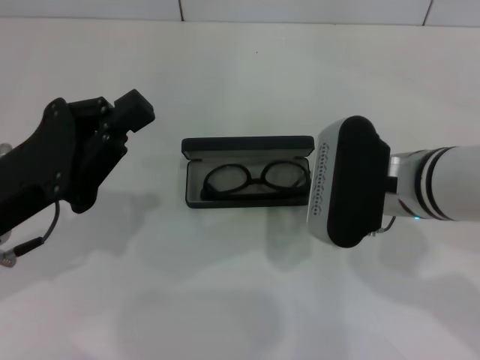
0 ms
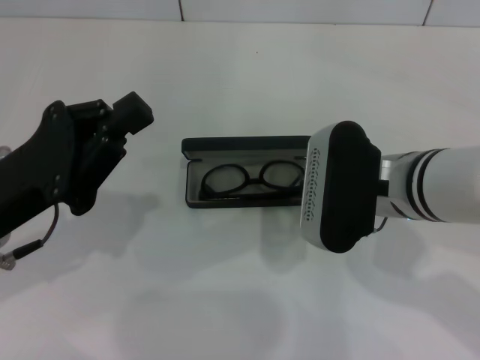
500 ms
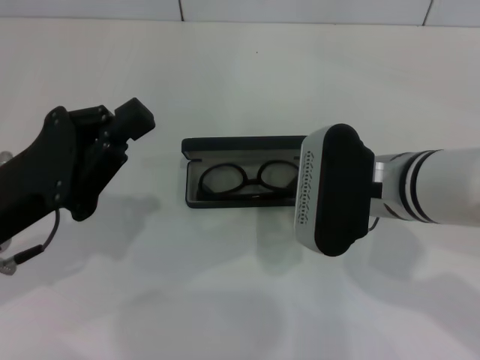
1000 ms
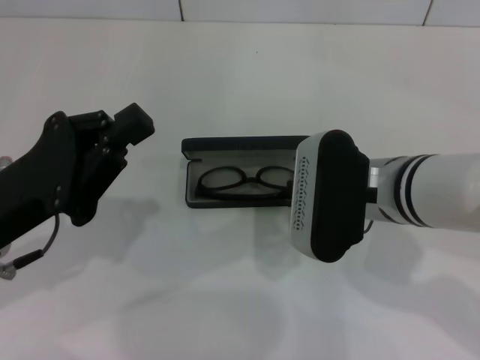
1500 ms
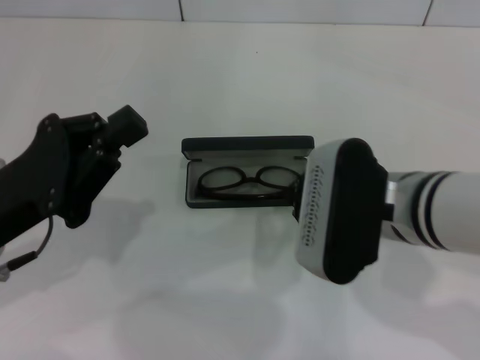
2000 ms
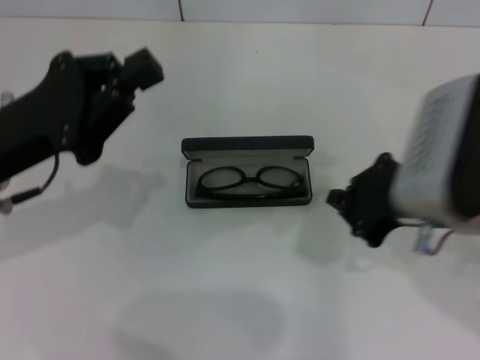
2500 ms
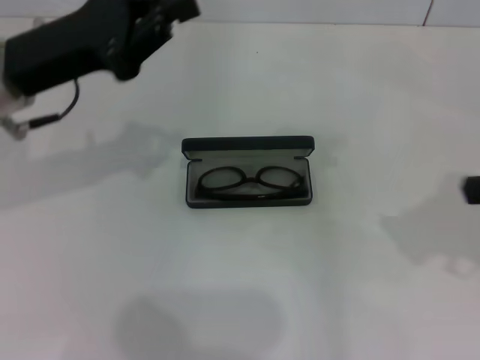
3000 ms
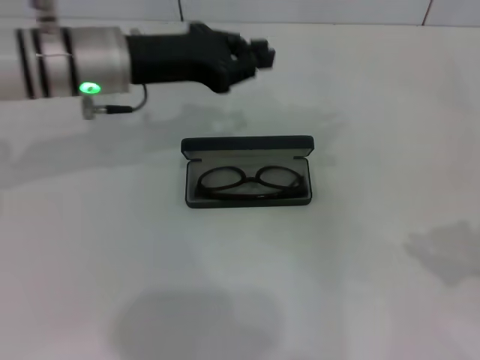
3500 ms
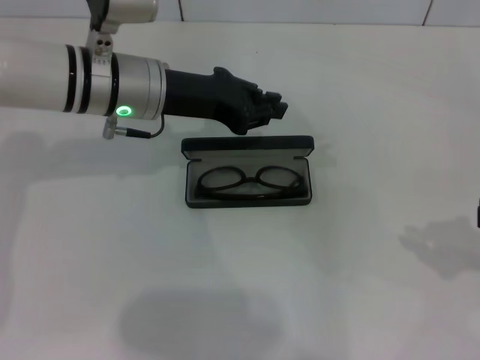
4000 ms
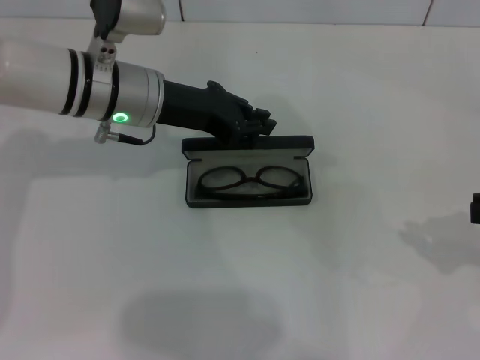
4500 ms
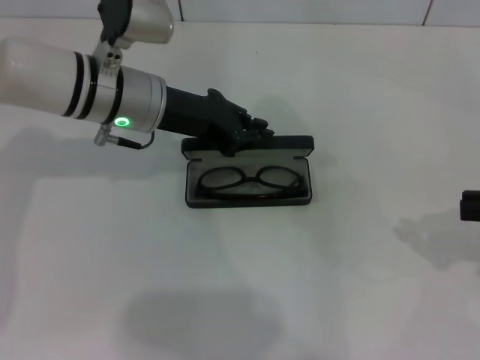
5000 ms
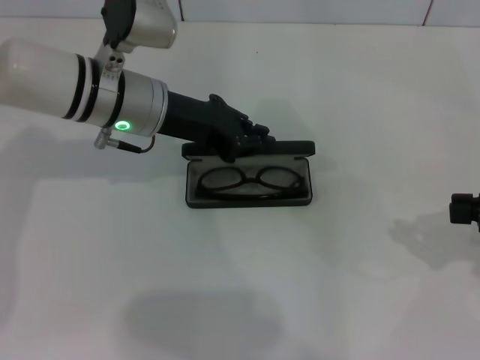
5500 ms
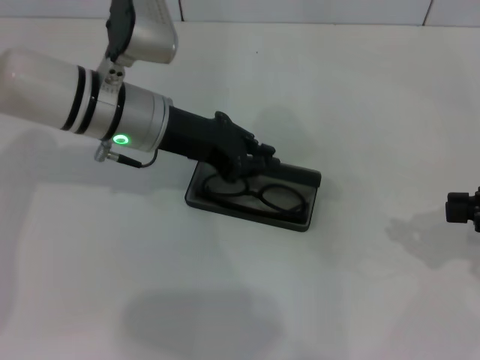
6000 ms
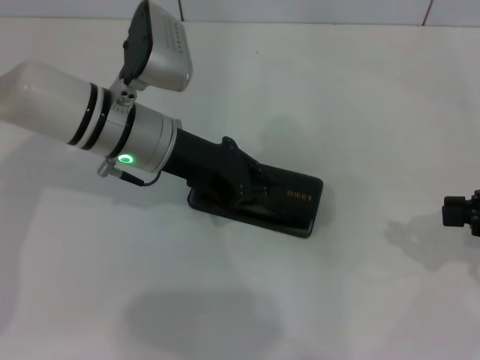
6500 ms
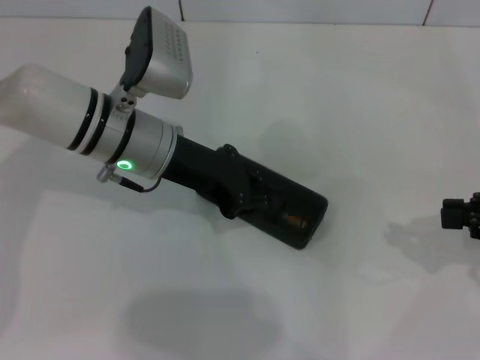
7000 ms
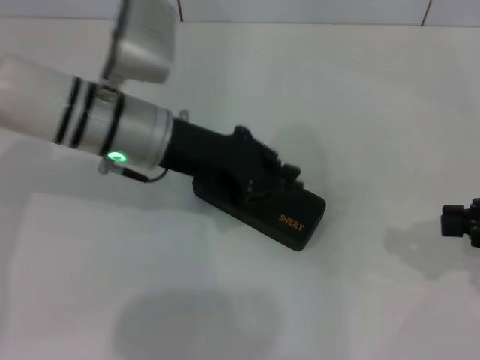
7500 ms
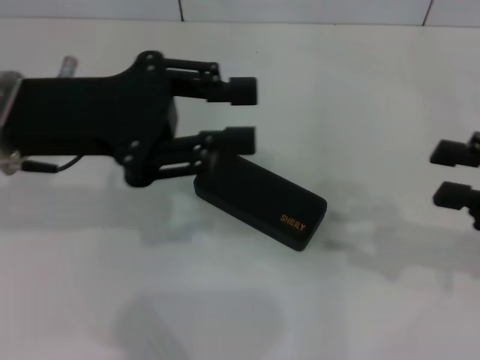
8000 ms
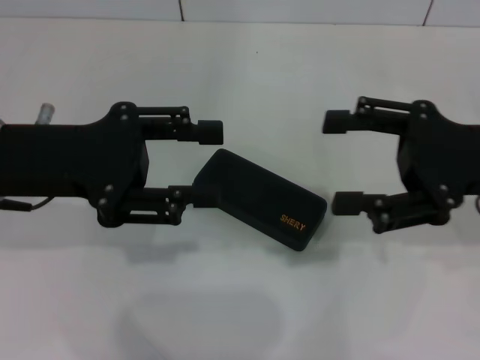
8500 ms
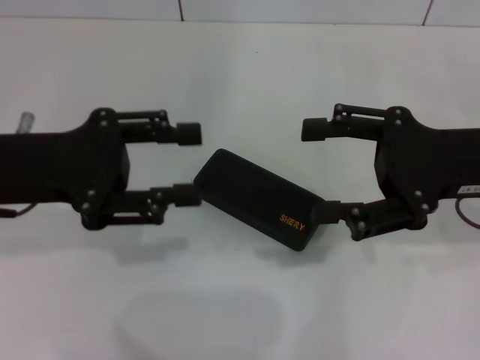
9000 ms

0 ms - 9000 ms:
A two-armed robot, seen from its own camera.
Step, 2000 ms - 6500 ms: Close the glasses case with your left hand.
0 ms - 2000 ms: The grippers make only small movements.
2000 ms - 4500 ms: The right gripper is displaced to the right by some 25 cm. The left gripper travels forward and to the right by some 20 cm.
4500 ms - 7000 ms: The grippers make only small movements.
7000 ms - 9000 ms: The left gripper heads to the left, backward and upward, covering some 15 cm, and opens. Meanwhile the right gripper moves to the left, approximately 10 cm, and opens up.

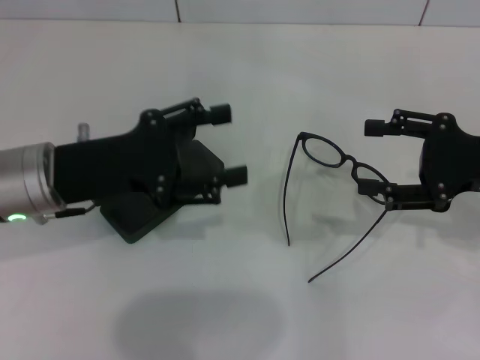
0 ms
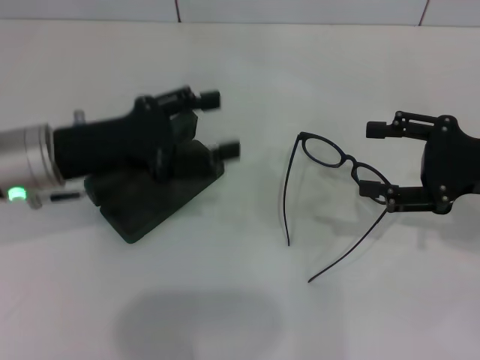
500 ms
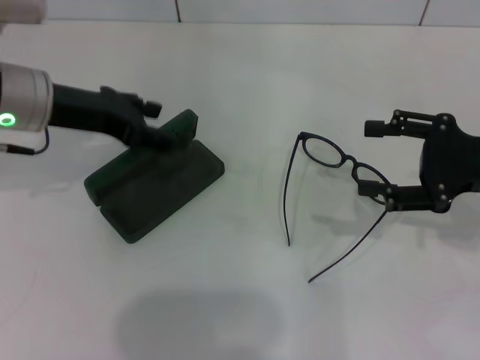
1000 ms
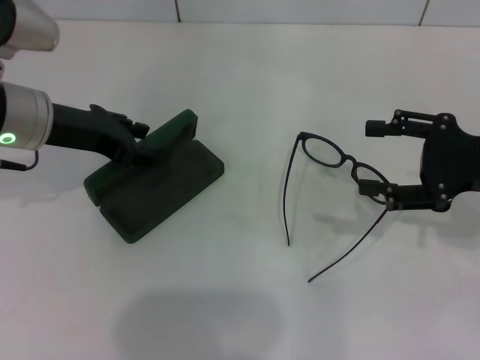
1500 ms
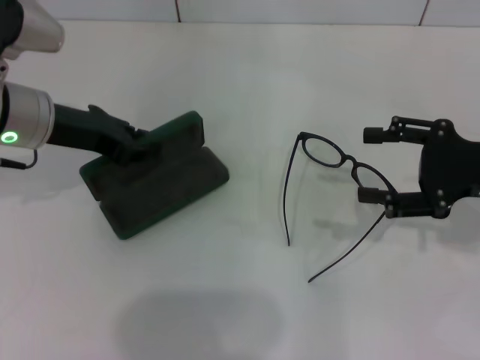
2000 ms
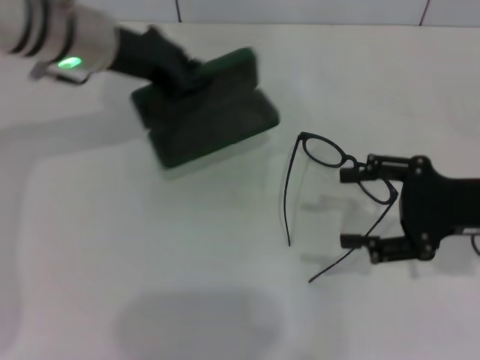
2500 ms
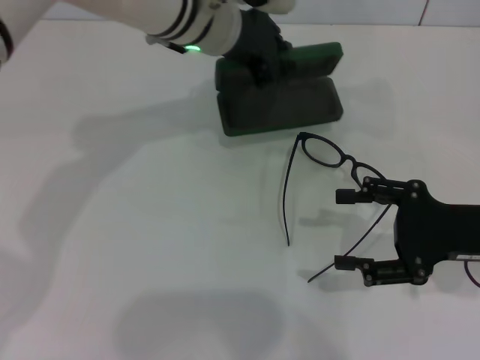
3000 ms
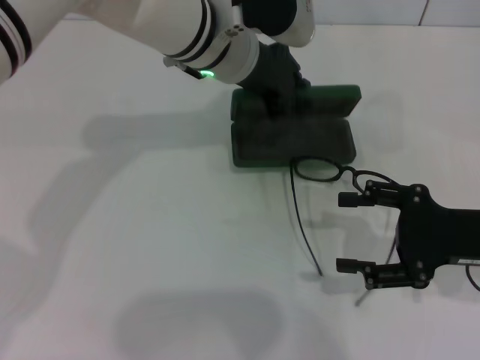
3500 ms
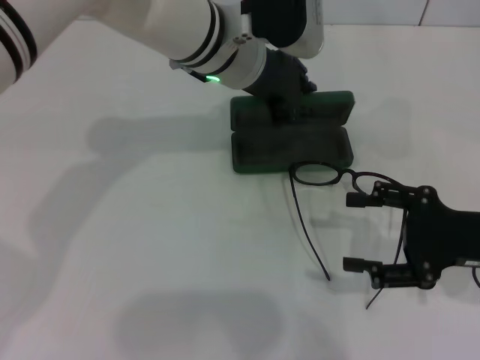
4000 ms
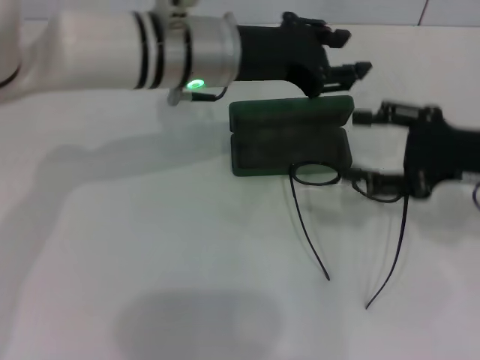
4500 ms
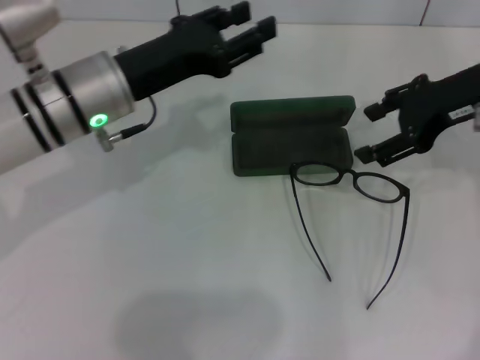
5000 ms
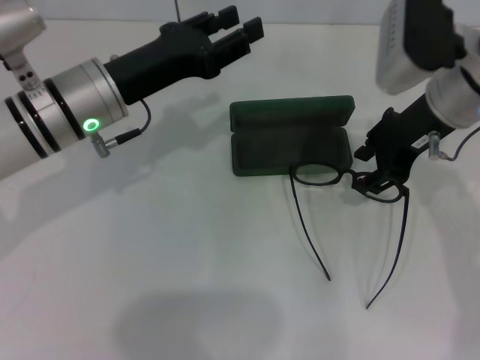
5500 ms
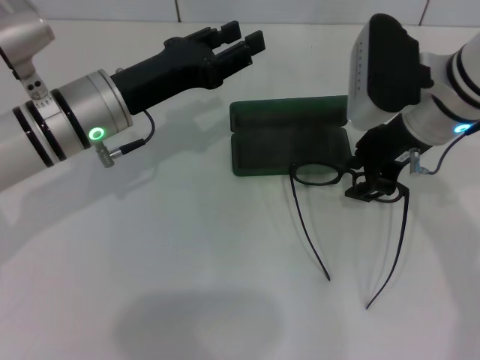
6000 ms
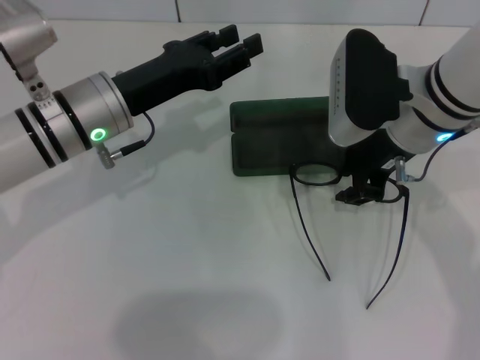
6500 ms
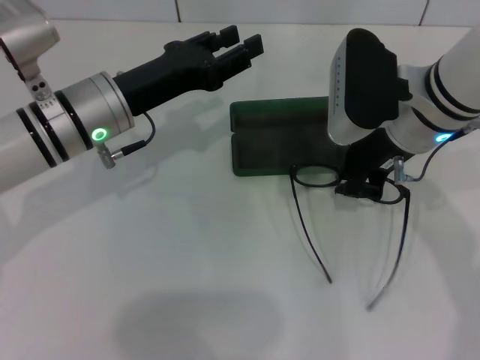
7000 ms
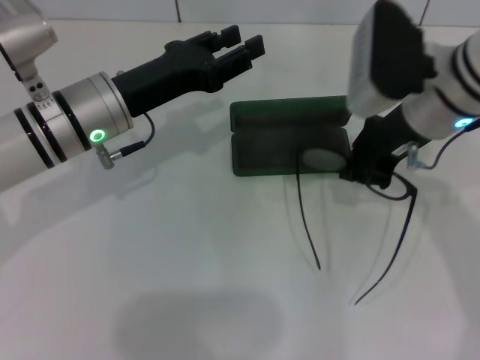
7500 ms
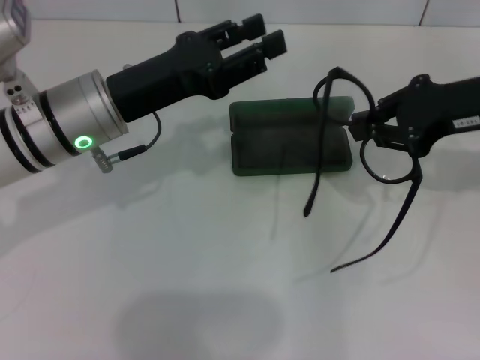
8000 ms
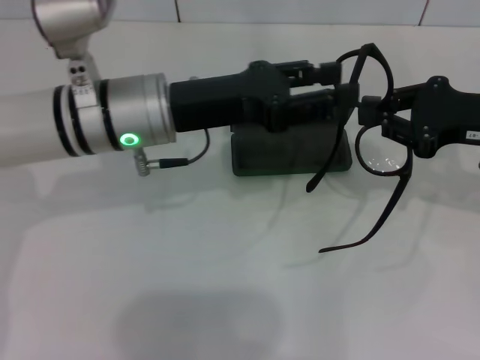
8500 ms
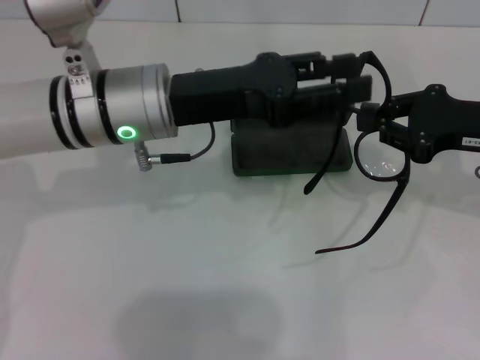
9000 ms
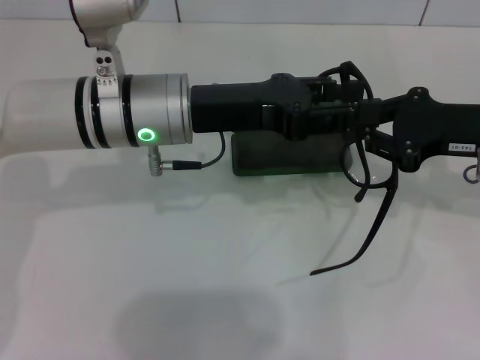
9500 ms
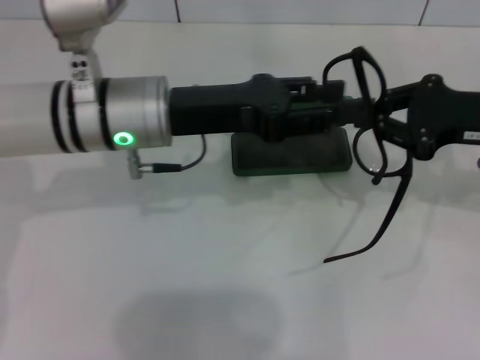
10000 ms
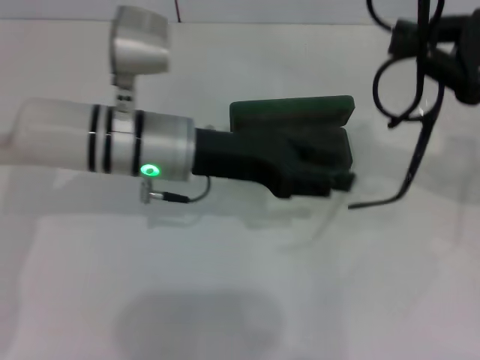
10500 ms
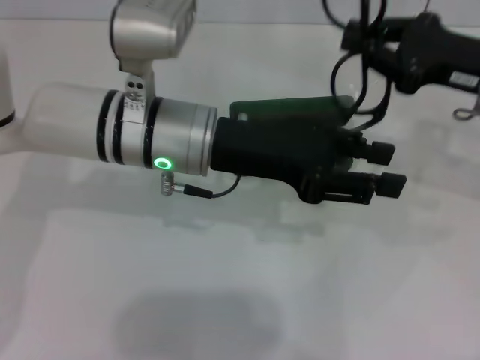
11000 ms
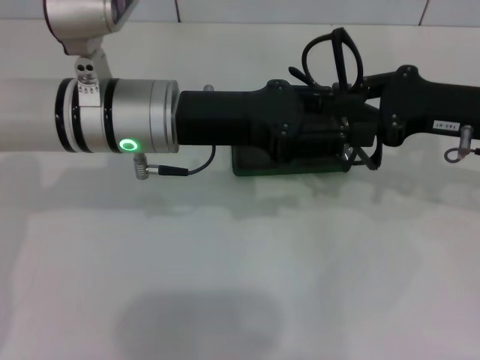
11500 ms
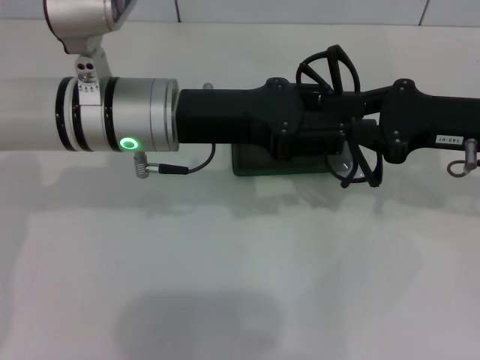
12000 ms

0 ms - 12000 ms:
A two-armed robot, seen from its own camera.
Step, 0 ms - 1500 ms: Grab the glasses case with your left hand.
Step, 2000 ms - 4000 ms: Place the glasses case in the center of the table with your left hand.
Step, 4500 ms - 7000 ms: Grab the eyeglass frame with your right hand.
0 ms - 2000 ms: The left gripper travels forward by about 5 cm, and closes up.
2000 ms - 4000 ms: The left gripper shifts about 20 cm to the right. Meanwhile the right gripper shifts by approximately 5 cm.
4000 ms - 6000 ms: The right gripper is displaced to the left, forward and upward by some 20 cm. The left gripper goes approximately 15 cm to the left, backward and downward, and opens.
6000 ms - 8000 ms: The right gripper moves to the right, about 10 cm, and closes.
10000 ms - 12000 ms: There are only small adjustments of the grippers.

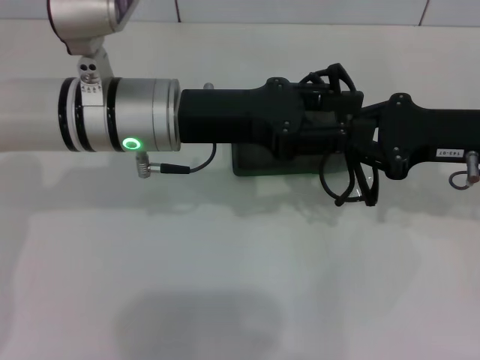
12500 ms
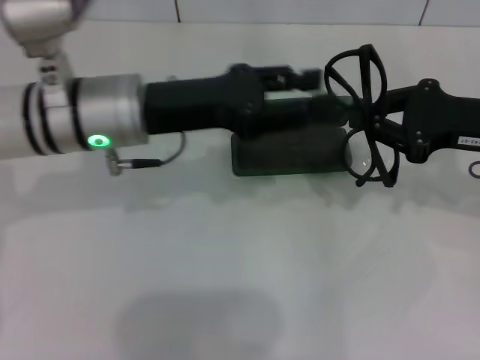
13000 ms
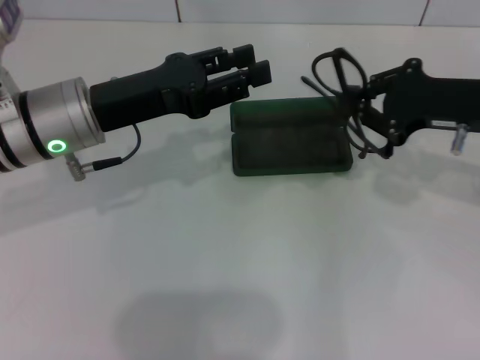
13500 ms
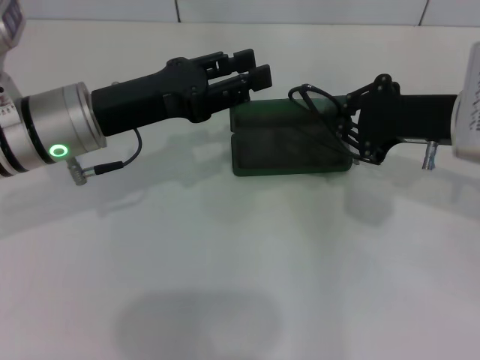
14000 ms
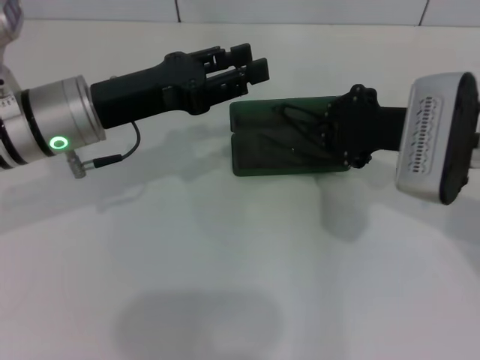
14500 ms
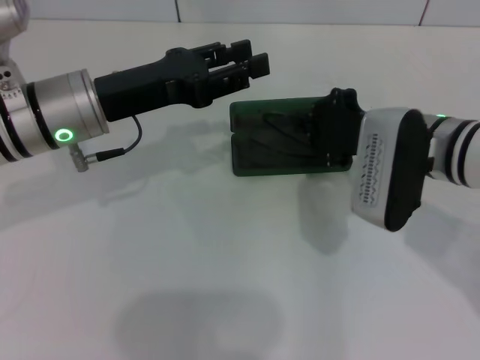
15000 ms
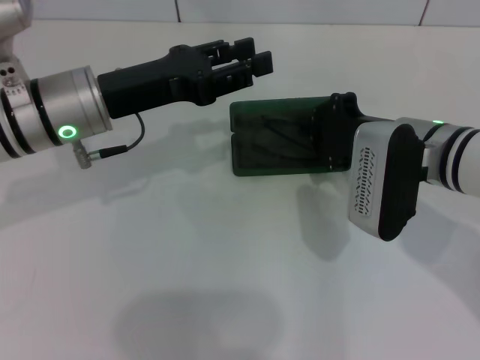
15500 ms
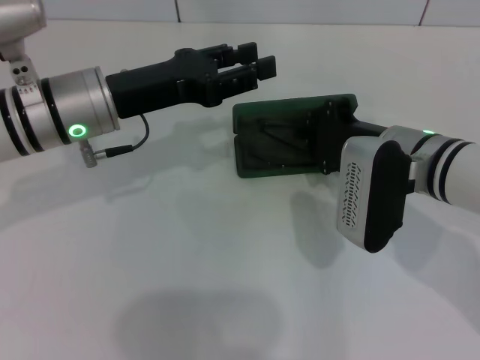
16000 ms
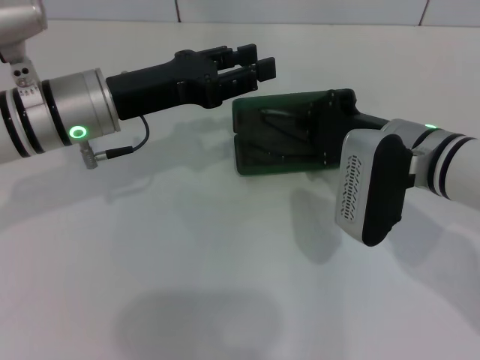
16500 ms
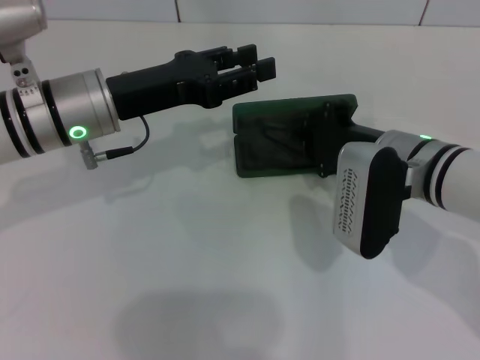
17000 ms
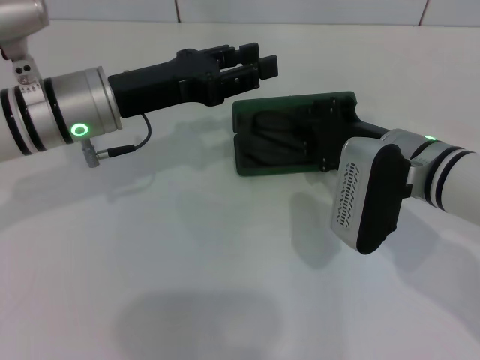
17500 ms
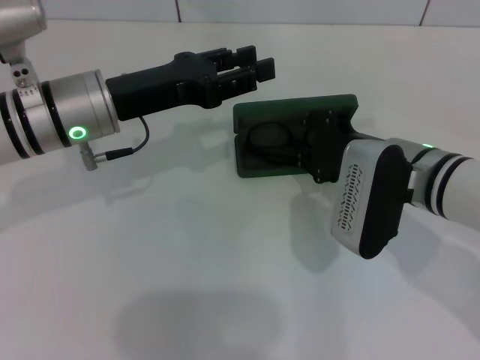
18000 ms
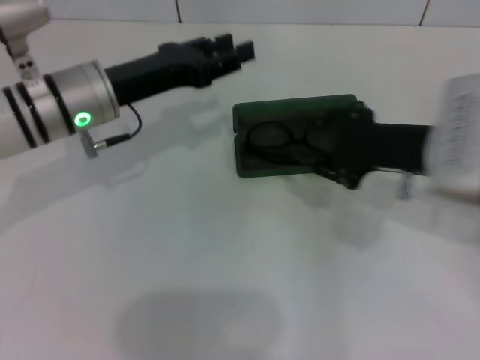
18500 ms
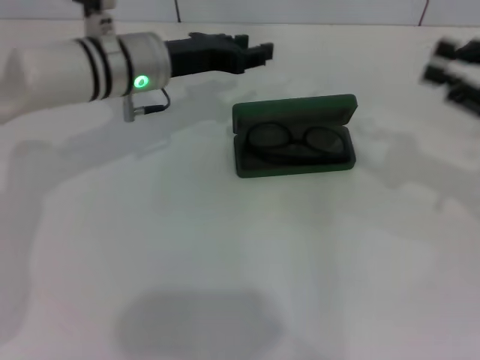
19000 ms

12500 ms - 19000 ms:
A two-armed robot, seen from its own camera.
Step, 13000 ms - 17500 ms: Put the glasses into the case with your right hand.
12500 ms - 14500 ms: Both grippers travel together to the left, about 5 cm.
14500 ms - 17000 ms: The right gripper ends up about 5 cm from where it was.
17000 ms - 19000 ms: The right gripper is displaced to the right by about 20 cm, while the left gripper is displaced forward by some 5 cm.
